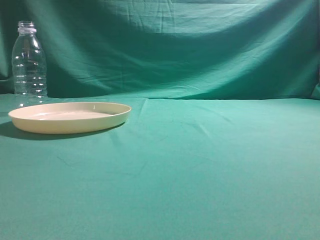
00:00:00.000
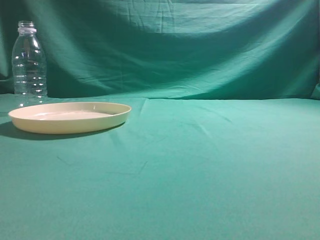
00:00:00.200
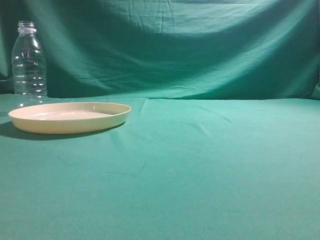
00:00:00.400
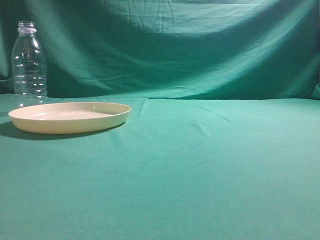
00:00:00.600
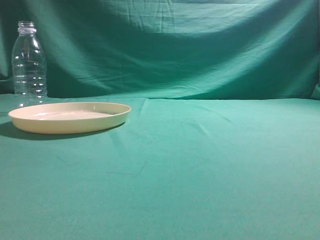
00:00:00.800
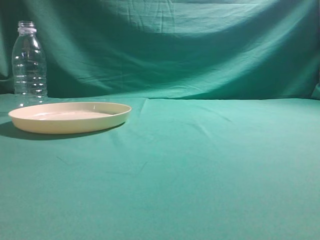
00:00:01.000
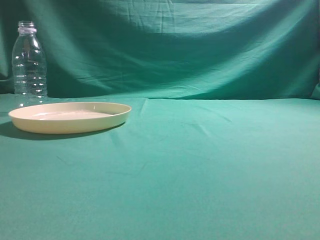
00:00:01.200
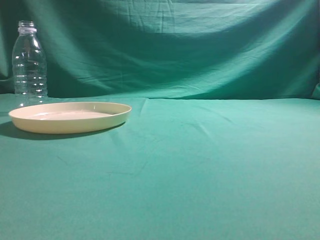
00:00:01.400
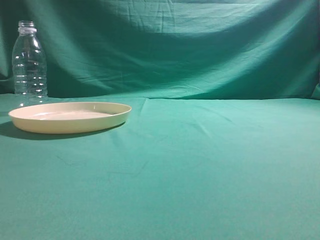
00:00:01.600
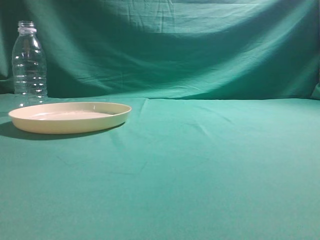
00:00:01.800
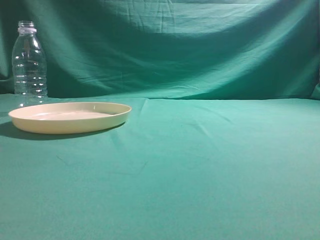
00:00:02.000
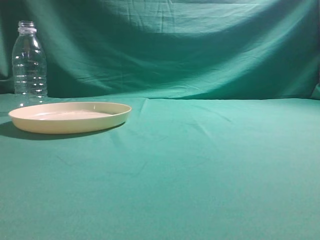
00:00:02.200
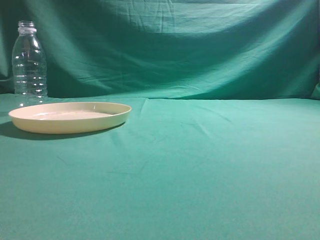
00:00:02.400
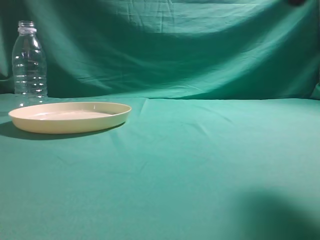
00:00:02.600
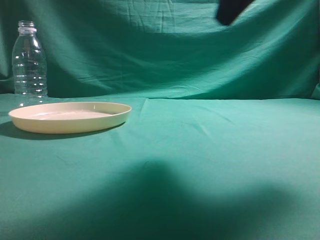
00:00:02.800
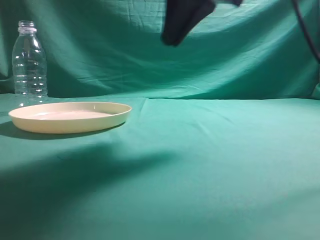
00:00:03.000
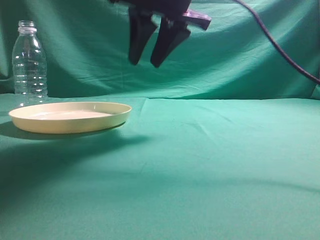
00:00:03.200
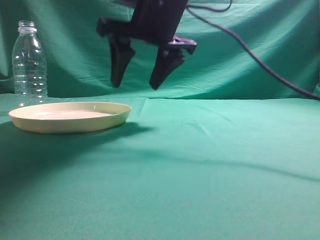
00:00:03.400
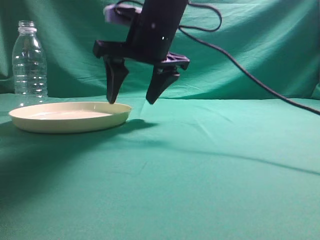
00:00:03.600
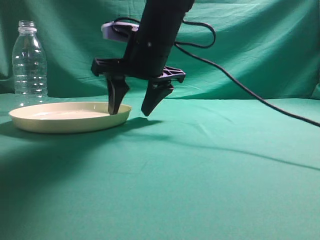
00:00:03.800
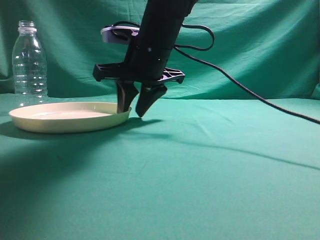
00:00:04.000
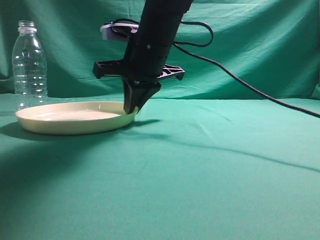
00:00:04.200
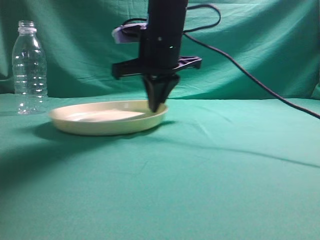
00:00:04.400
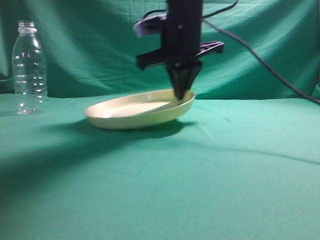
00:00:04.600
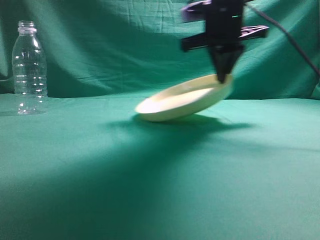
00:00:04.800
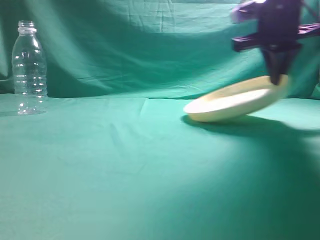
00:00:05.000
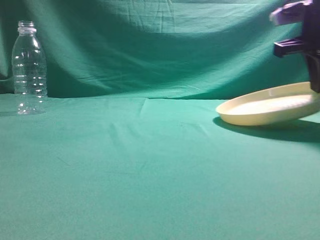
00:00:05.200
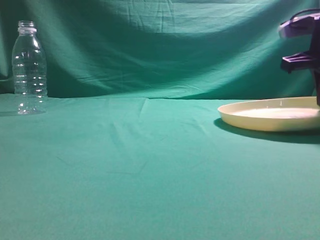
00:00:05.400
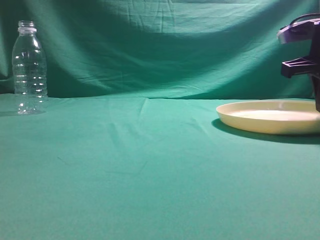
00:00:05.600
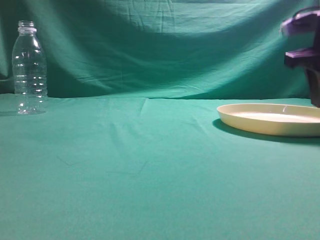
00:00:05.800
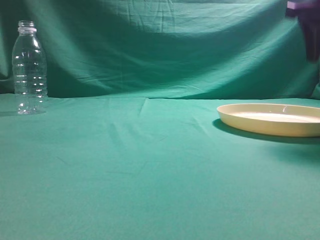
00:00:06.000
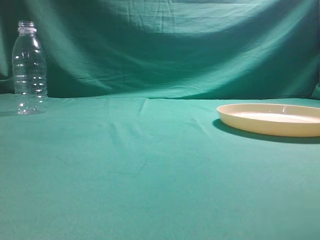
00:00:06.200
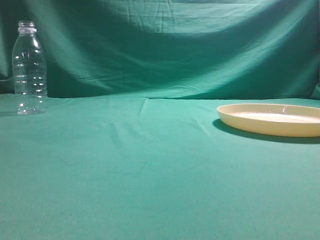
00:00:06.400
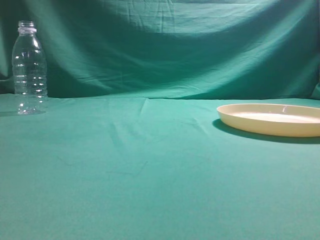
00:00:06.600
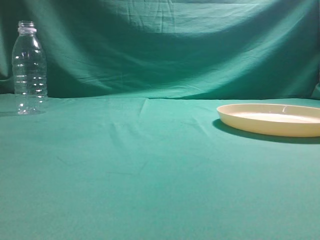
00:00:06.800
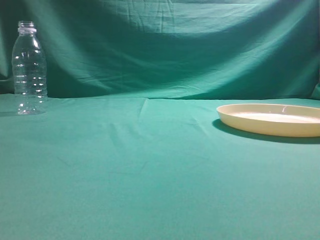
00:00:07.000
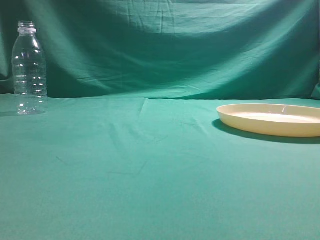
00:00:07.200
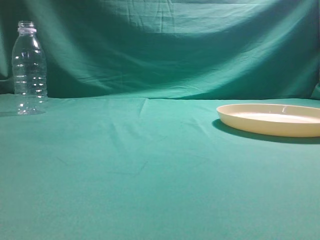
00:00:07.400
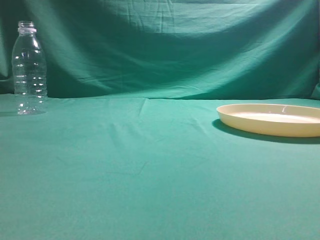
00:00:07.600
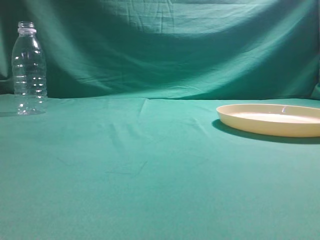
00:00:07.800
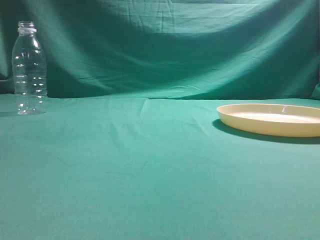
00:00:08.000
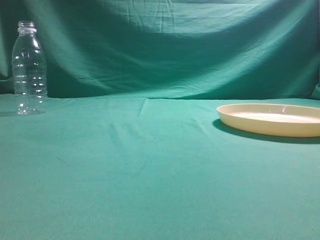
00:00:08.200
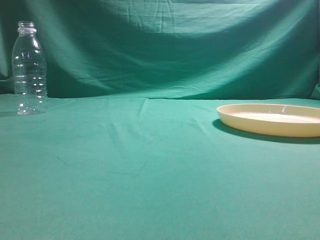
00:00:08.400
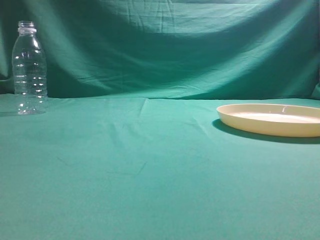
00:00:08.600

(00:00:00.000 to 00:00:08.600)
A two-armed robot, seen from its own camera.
Step, 00:00:00.000 - 00:00:04.600: Pick the container that can hold fruits.
Step, 00:00:04.800 - 00:00:06.000: Move the picked object to the right side of the table.
00:00:01.400 - 00:00:02.800: The right gripper heads forward and upward, covering some 15 cm.
00:00:02.800 - 00:00:04.400: The right gripper moves to the left, forward and downward, approximately 35 cm, and opens its fingers.
00:00:04.400 - 00:00:05.800: The right gripper is displaced to the right by about 25 cm, and closes up.
00:00:05.800 - 00:00:07.200: The right gripper goes about 35 cm backward and upward, and opens and closes again.
